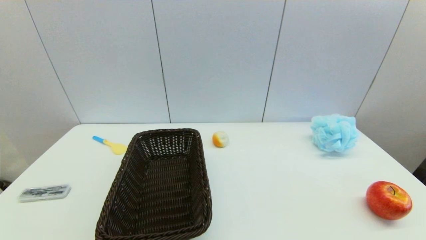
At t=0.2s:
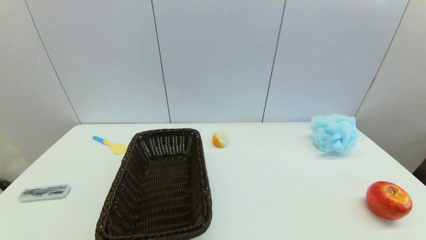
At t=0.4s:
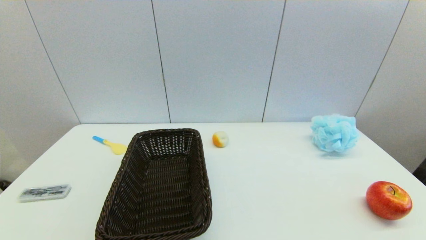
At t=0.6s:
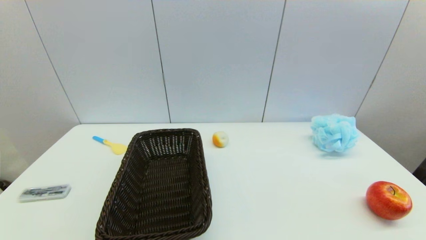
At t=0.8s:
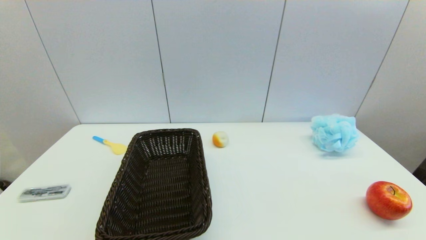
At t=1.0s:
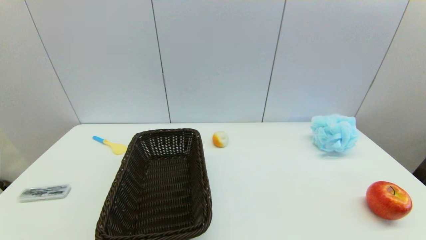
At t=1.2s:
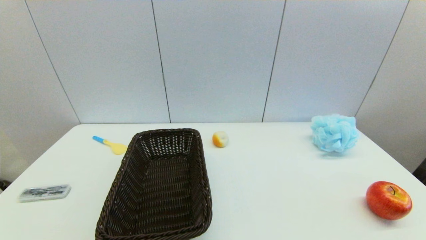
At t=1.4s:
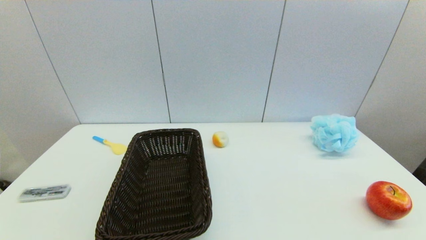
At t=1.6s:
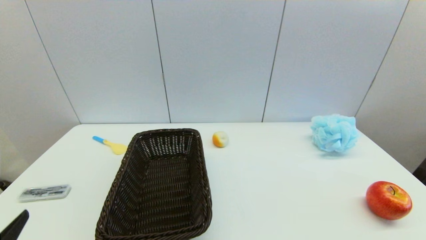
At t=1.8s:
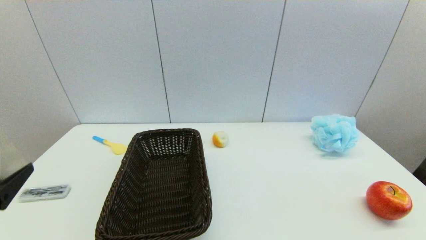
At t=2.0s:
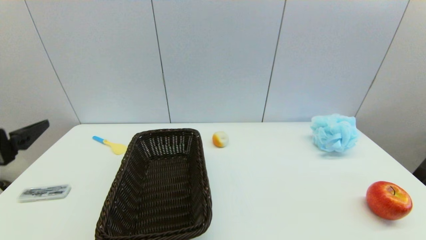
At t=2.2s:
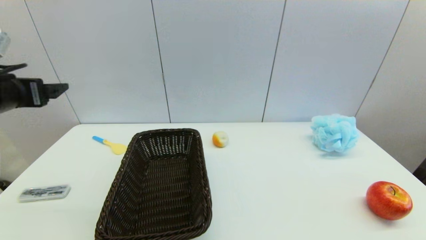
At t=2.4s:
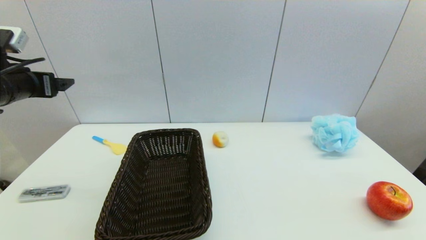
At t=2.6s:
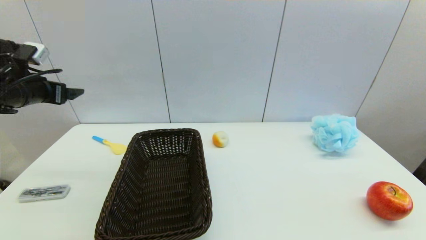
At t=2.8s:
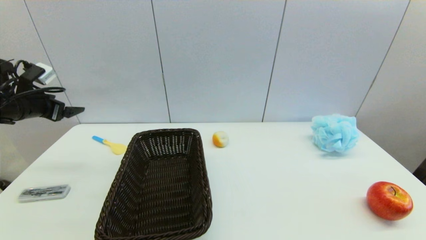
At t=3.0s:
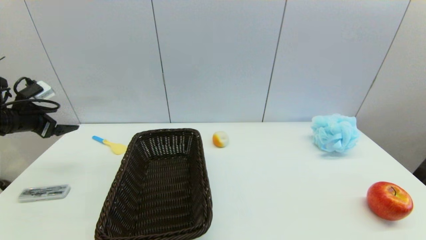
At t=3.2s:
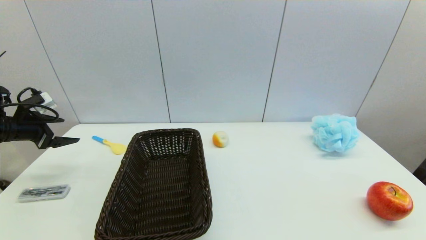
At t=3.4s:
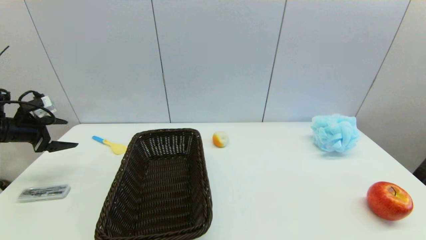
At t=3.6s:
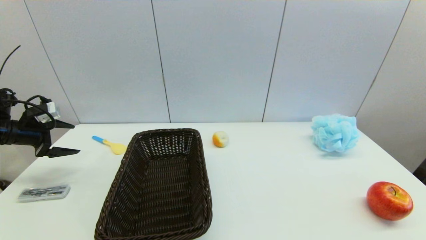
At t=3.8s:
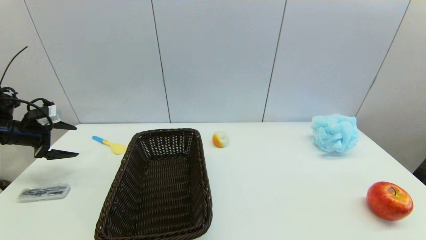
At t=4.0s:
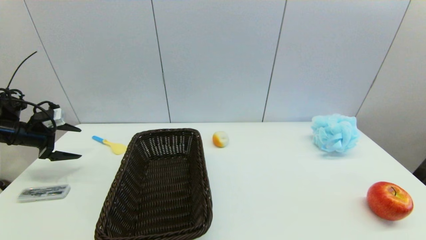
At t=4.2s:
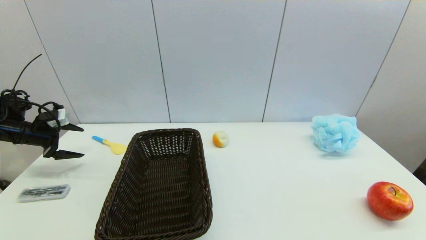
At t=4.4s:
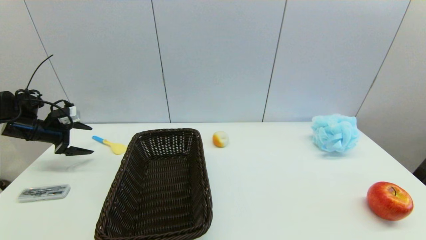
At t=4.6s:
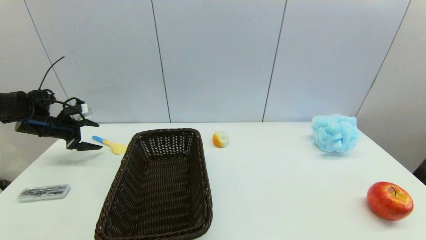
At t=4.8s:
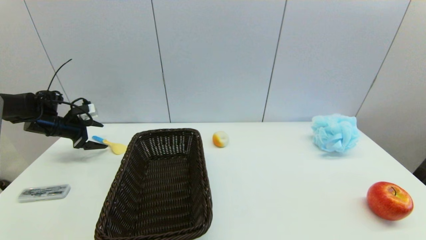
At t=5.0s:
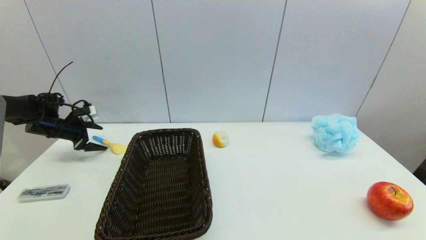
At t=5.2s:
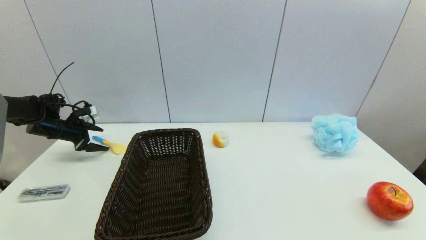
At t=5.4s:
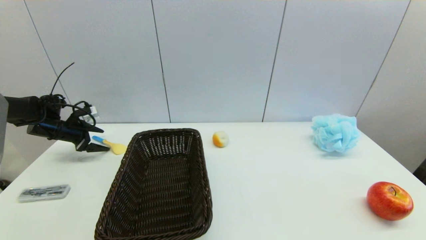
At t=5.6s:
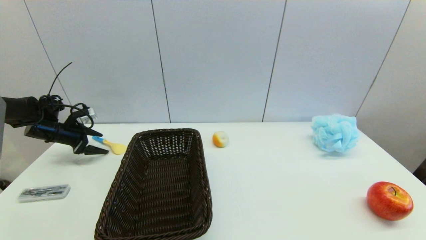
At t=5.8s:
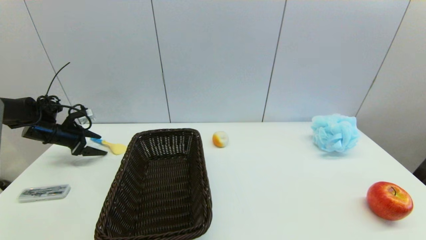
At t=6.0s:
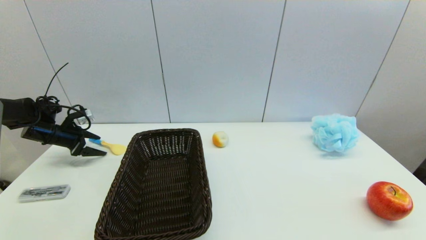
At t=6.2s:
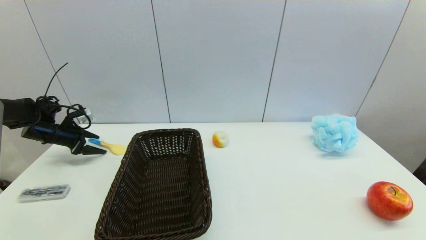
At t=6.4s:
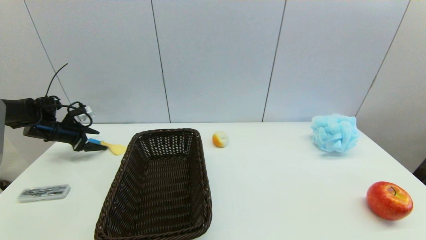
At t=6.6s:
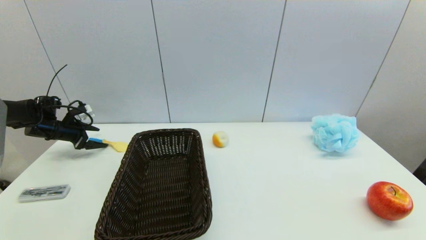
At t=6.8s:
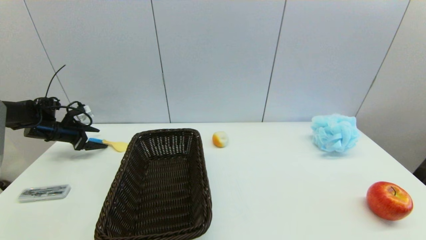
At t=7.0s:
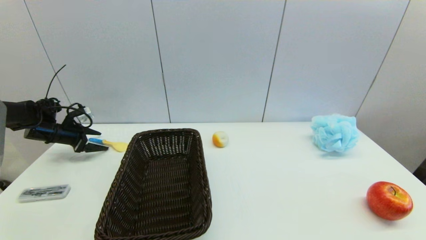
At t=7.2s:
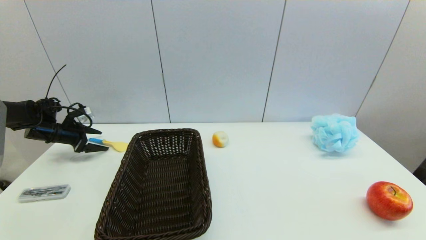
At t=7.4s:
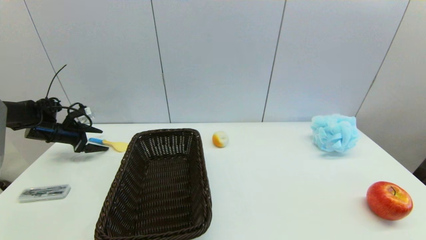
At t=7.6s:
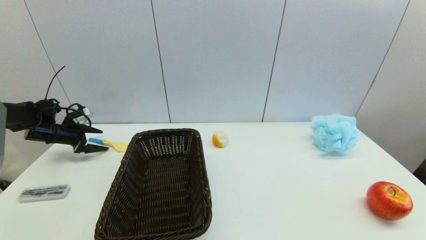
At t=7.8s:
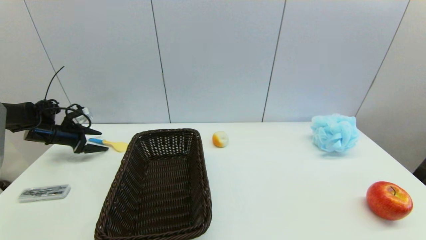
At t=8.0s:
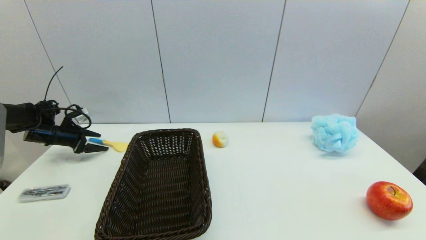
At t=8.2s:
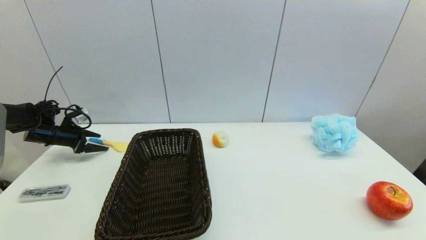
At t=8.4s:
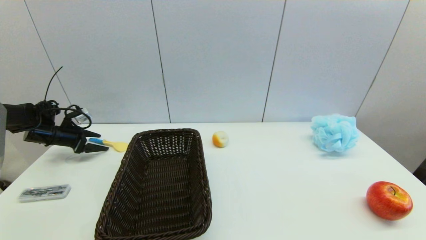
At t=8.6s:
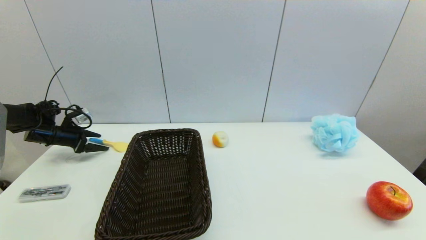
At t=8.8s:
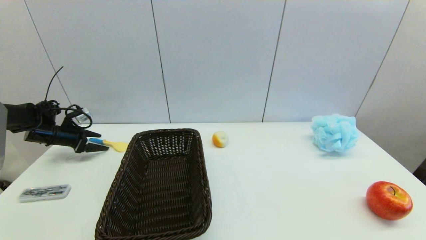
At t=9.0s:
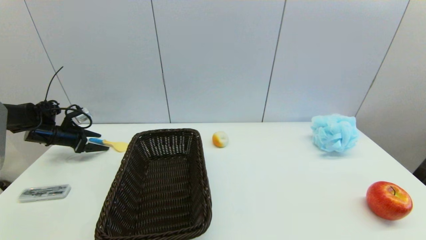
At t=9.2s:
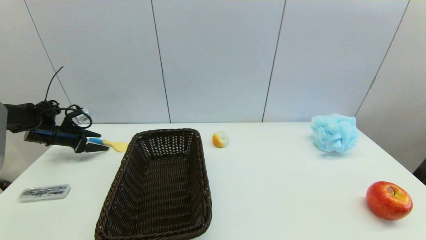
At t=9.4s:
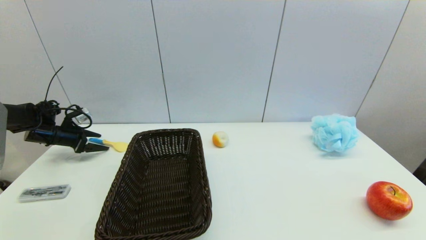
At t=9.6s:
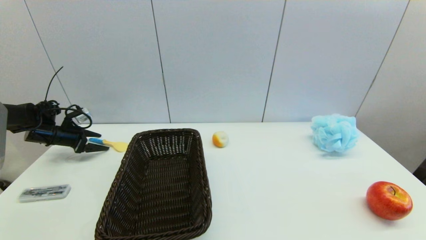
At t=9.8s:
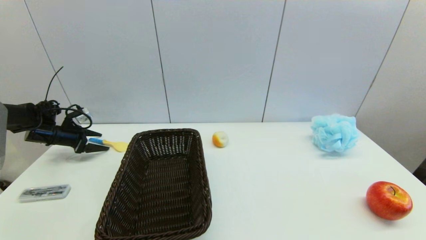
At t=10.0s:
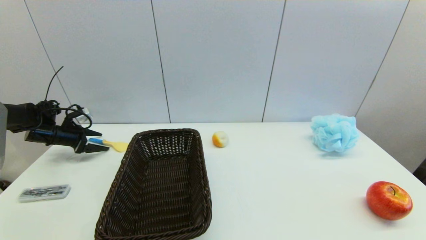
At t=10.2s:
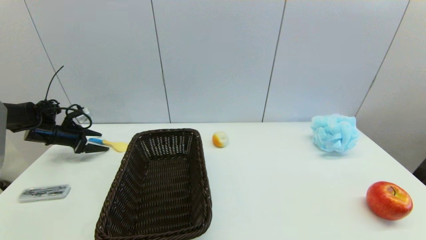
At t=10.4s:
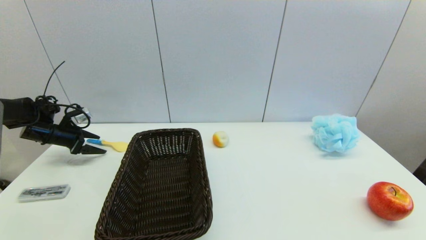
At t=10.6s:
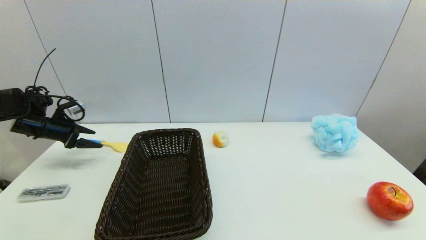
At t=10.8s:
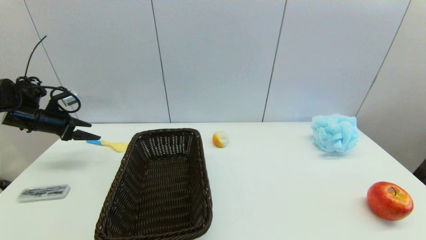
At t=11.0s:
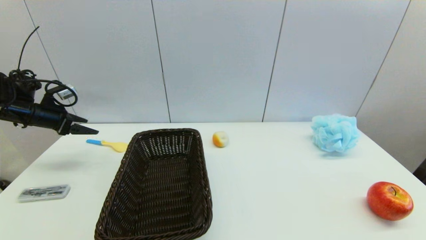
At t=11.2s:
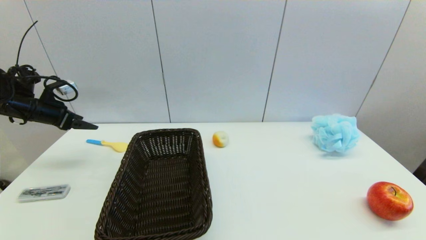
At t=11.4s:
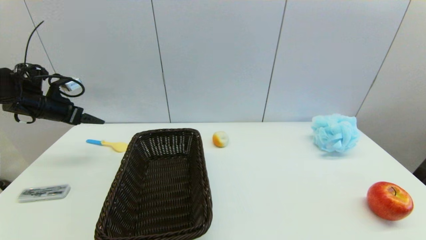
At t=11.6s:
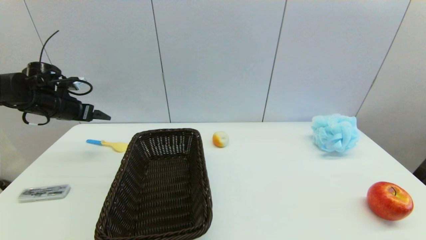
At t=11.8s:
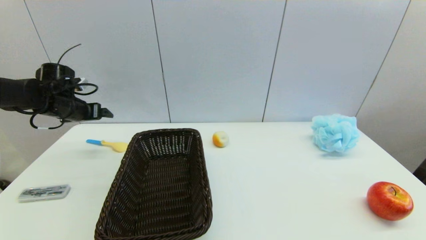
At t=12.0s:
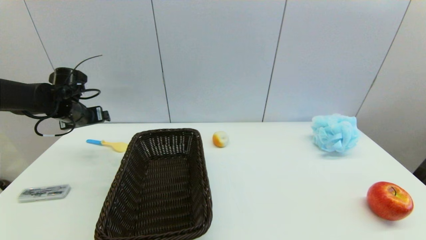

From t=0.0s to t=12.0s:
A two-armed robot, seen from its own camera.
From t=1.6s to t=3.0s: The left gripper travels forward and to the left by about 35 cm.
From t=3.0s to t=4.4s: The left gripper goes about 10 cm forward and downward.
From t=4.4s to t=7.6s: The grippers stay close to where they were, moving slightly.
From t=7.6s to t=10.4s: The grippers move only a little.
From t=10.4s to t=12.0s: The left gripper shifts about 15 cm to the right and upward.

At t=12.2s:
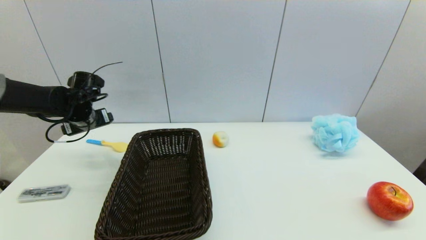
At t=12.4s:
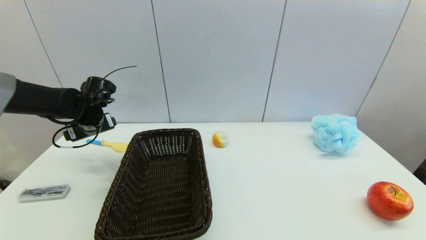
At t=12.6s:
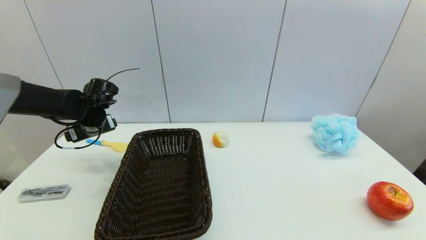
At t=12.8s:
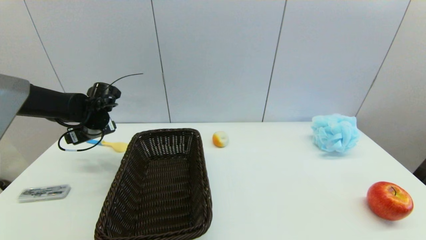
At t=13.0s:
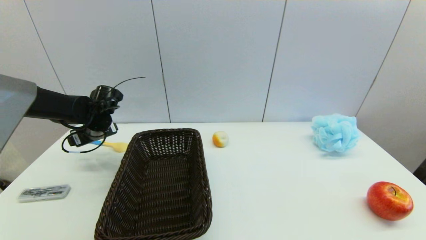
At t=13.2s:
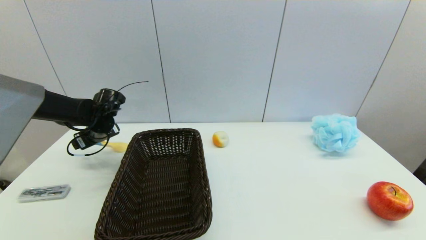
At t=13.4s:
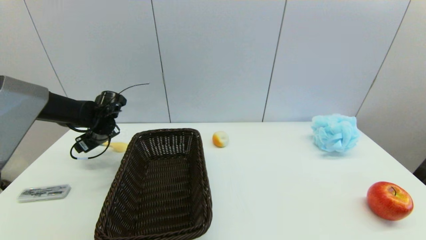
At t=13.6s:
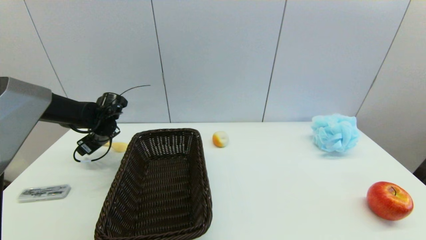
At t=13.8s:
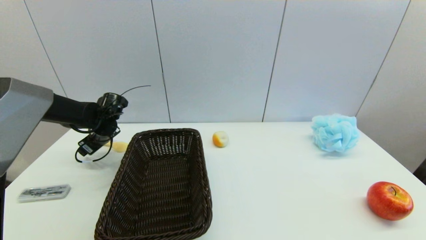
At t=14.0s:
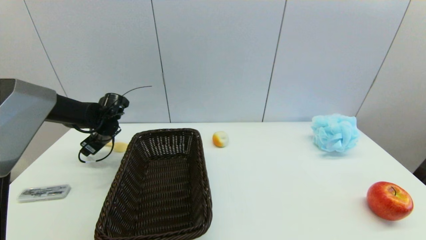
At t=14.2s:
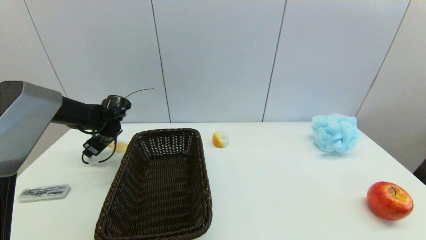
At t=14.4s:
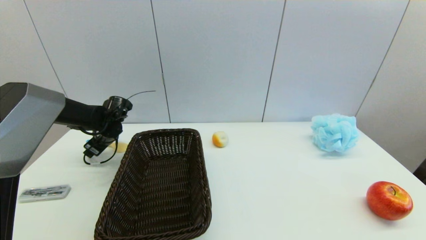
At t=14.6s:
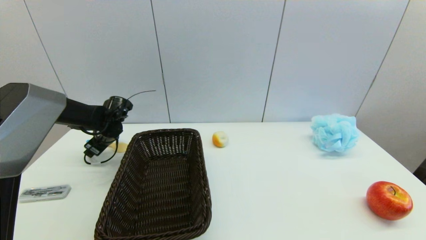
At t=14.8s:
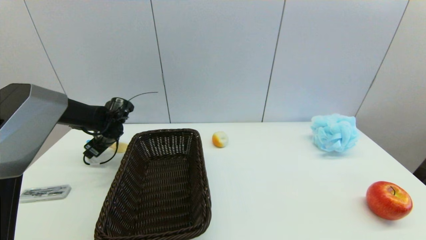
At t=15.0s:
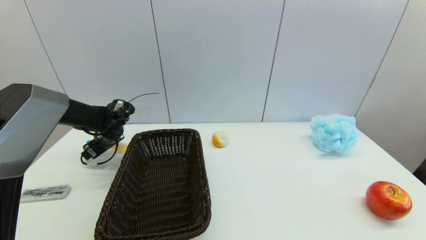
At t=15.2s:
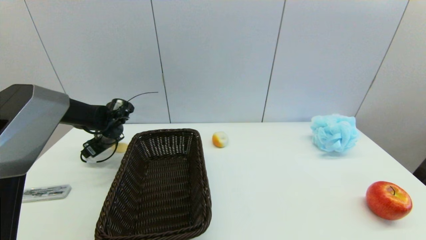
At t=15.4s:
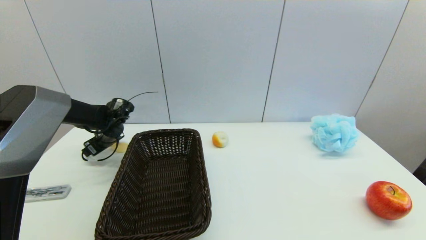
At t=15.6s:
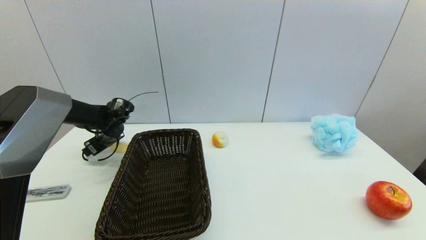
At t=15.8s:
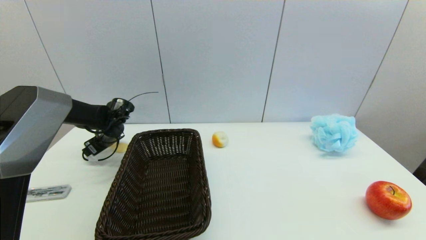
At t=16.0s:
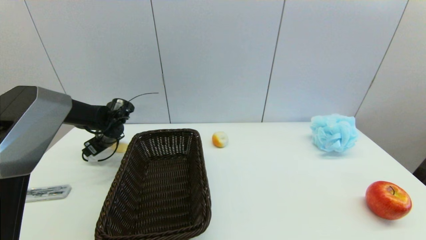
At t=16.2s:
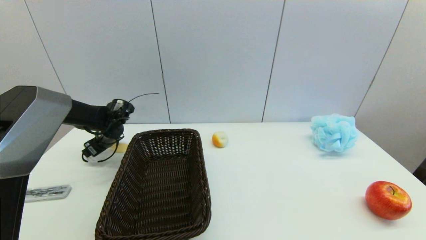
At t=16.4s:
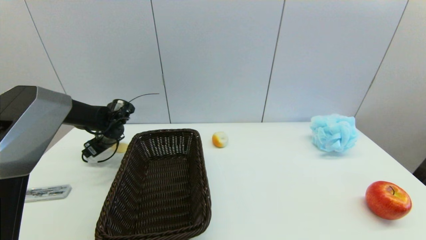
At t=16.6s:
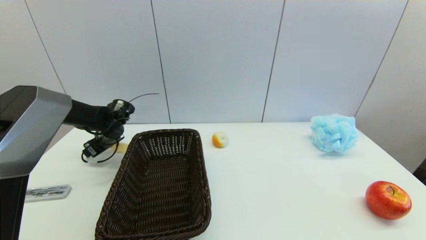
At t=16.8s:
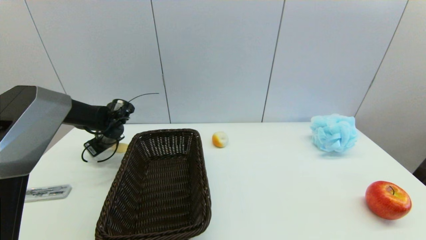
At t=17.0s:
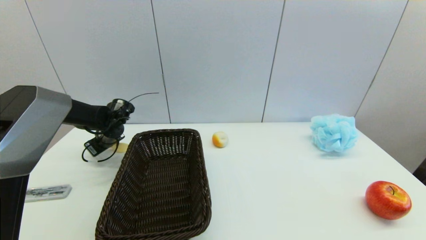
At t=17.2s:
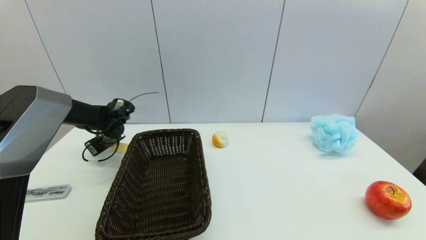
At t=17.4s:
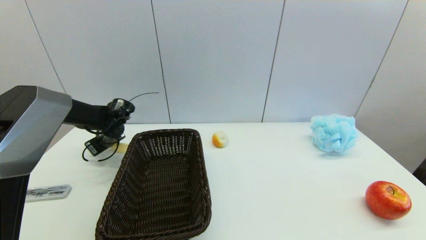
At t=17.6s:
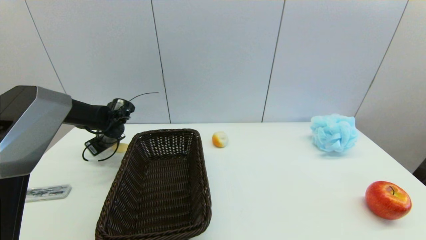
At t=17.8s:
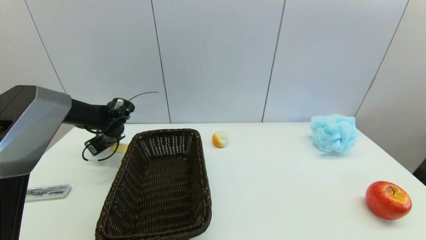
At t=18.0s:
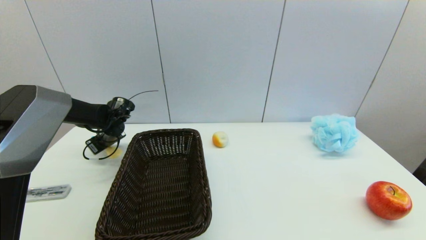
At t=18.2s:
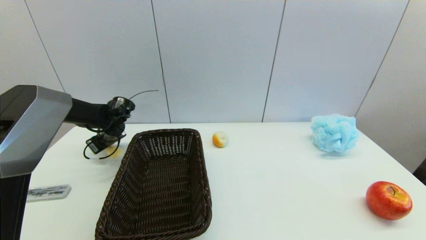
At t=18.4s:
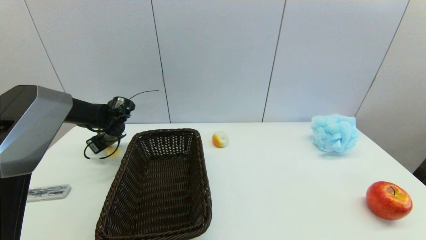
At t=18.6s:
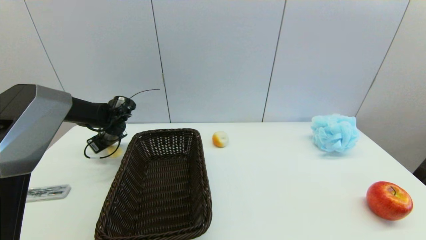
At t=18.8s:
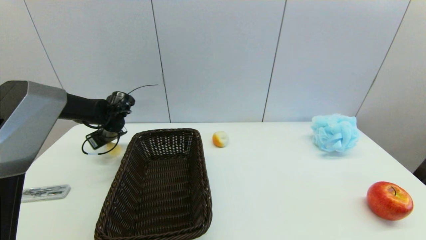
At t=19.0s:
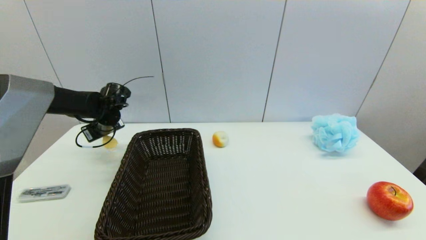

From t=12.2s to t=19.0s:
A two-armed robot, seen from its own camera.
Step, from t=12.2s to t=18.4s: Grasp the spoon with left gripper.
From t=12.2s to t=13.6s: The left gripper moves downward, about 5 cm.
From t=13.6s to t=16.2s: The grippers move only a little.
From t=17.6s to t=19.0s: The left gripper goes about 5 cm upward, and closes up.
